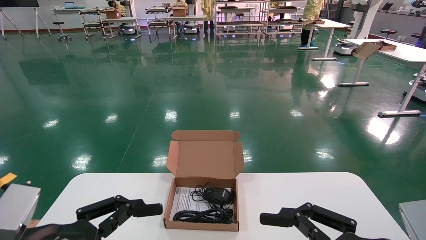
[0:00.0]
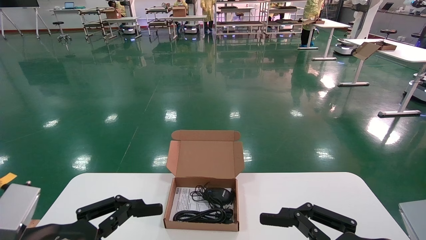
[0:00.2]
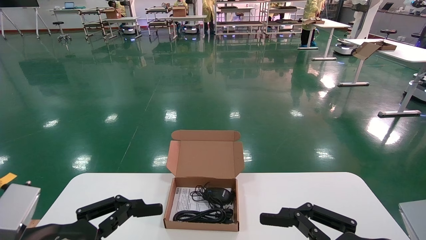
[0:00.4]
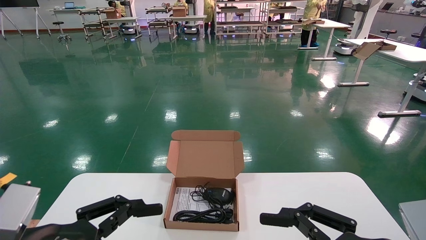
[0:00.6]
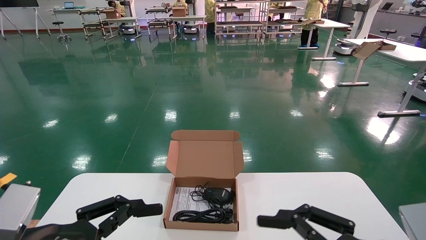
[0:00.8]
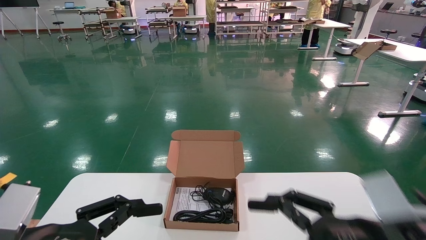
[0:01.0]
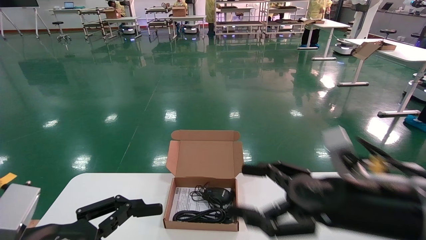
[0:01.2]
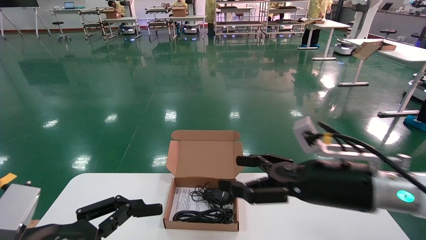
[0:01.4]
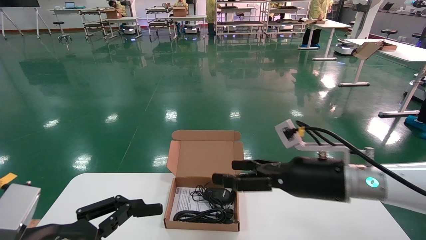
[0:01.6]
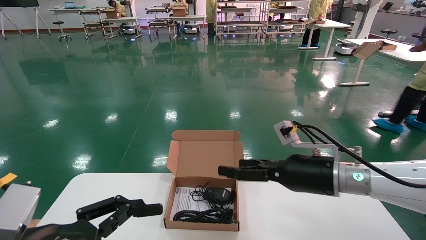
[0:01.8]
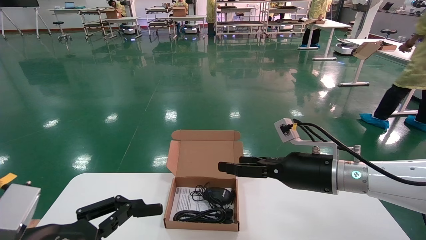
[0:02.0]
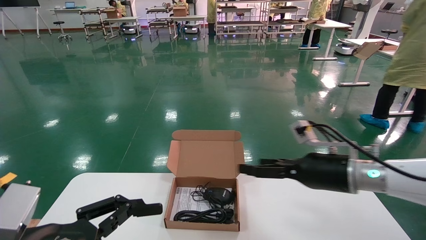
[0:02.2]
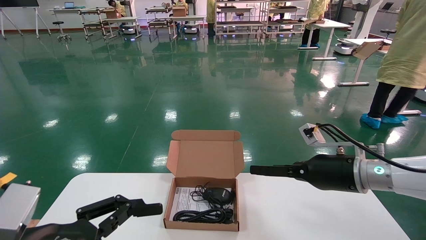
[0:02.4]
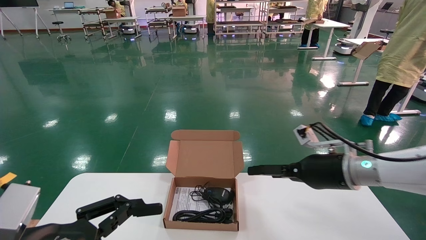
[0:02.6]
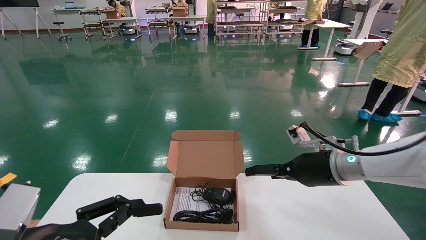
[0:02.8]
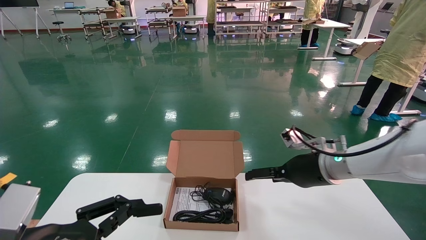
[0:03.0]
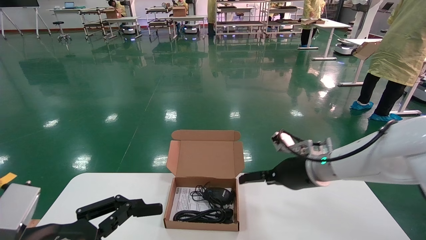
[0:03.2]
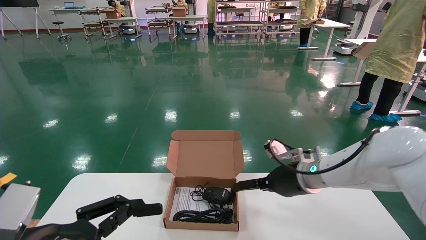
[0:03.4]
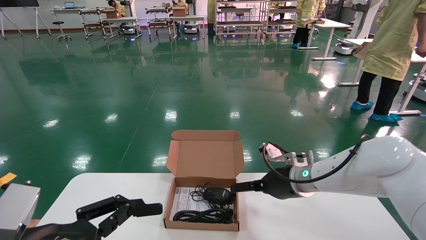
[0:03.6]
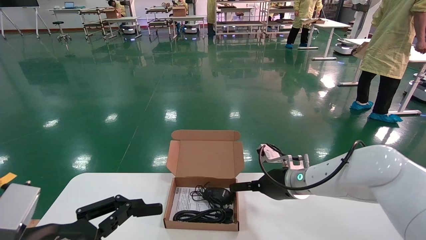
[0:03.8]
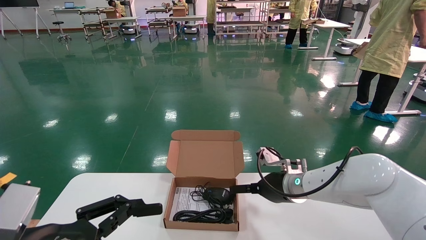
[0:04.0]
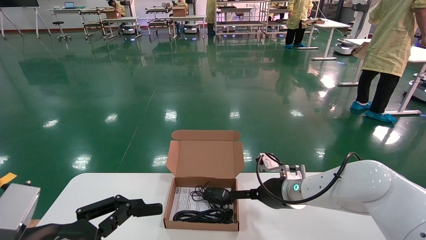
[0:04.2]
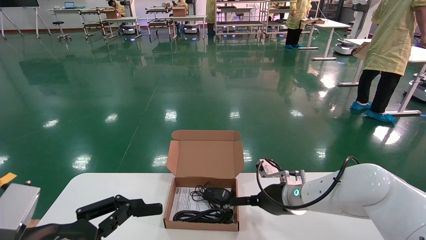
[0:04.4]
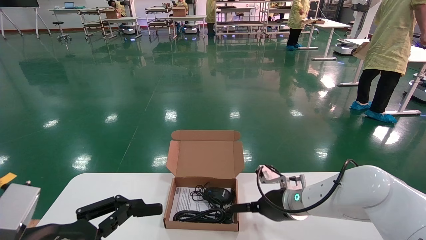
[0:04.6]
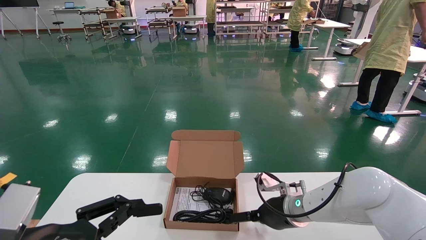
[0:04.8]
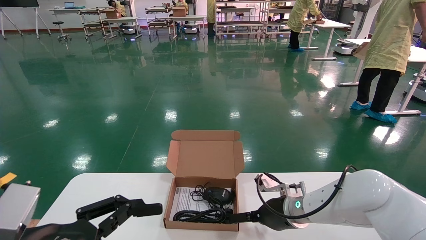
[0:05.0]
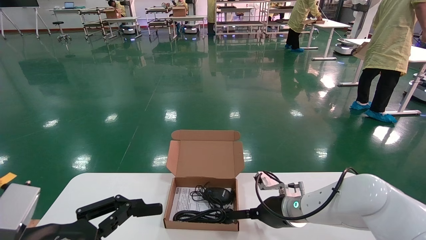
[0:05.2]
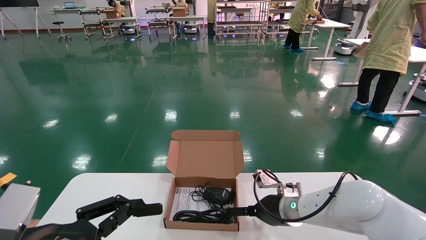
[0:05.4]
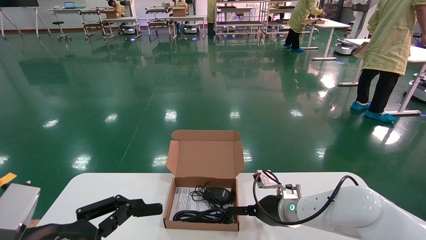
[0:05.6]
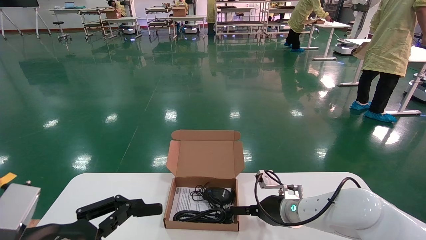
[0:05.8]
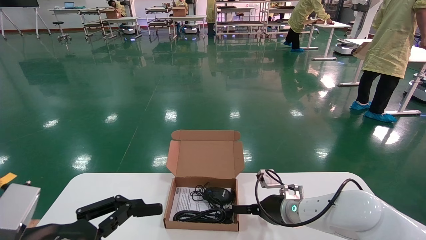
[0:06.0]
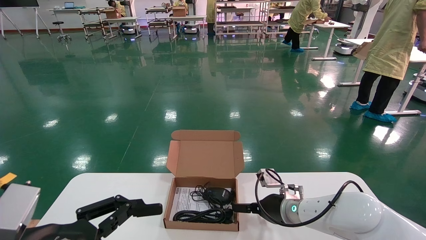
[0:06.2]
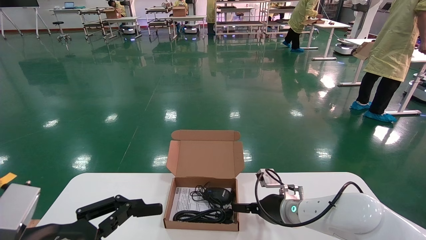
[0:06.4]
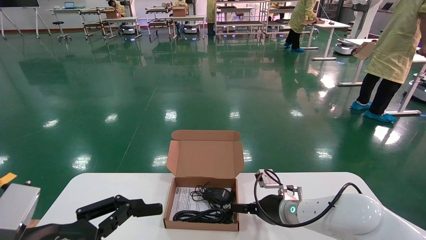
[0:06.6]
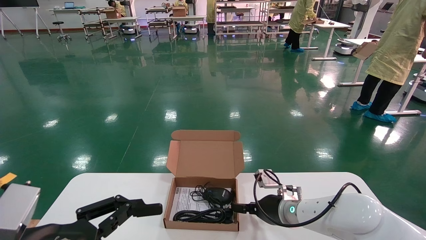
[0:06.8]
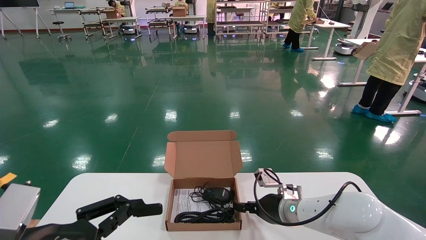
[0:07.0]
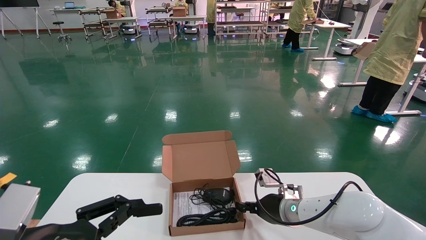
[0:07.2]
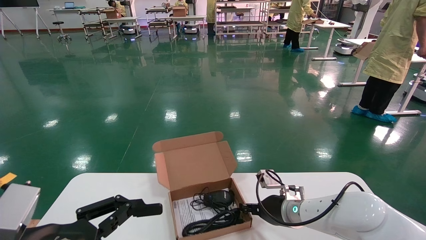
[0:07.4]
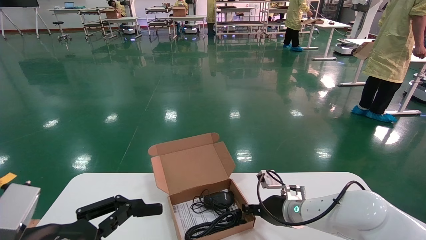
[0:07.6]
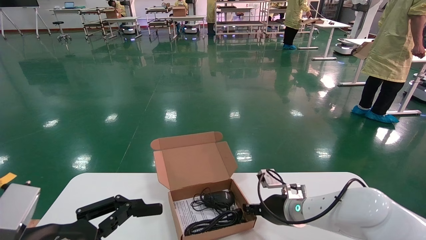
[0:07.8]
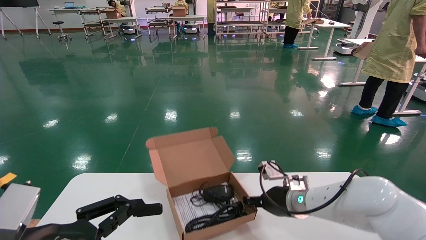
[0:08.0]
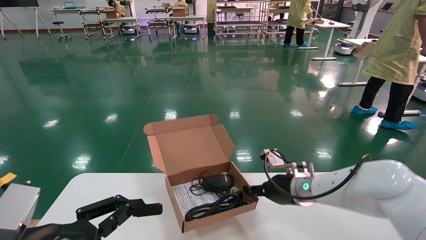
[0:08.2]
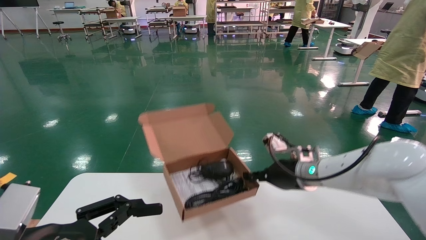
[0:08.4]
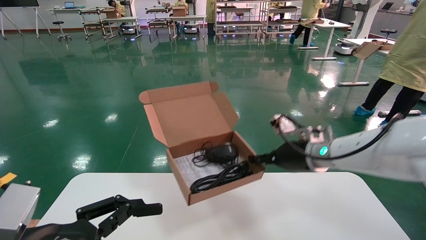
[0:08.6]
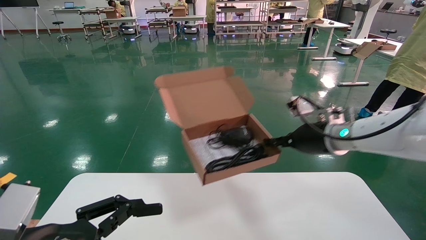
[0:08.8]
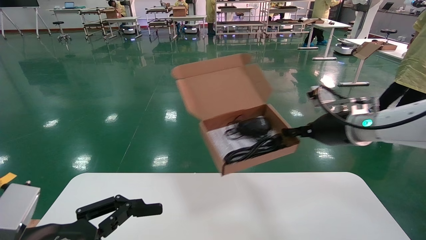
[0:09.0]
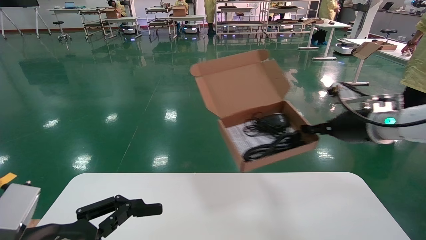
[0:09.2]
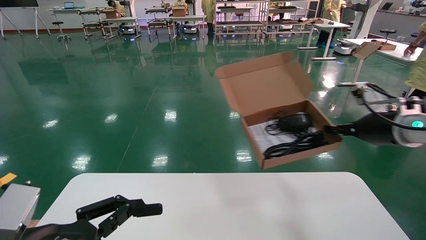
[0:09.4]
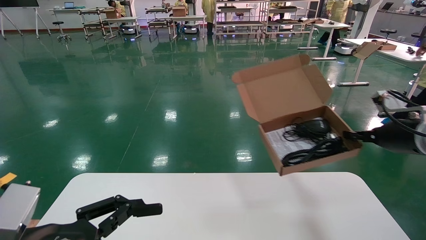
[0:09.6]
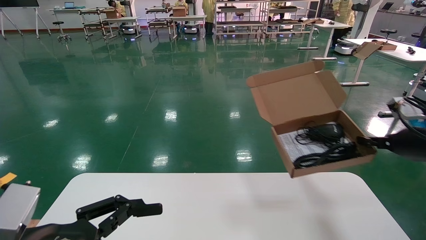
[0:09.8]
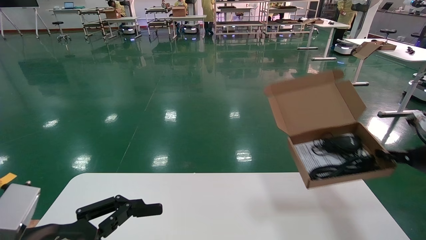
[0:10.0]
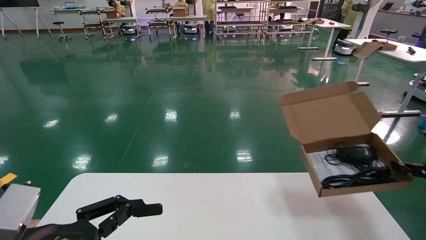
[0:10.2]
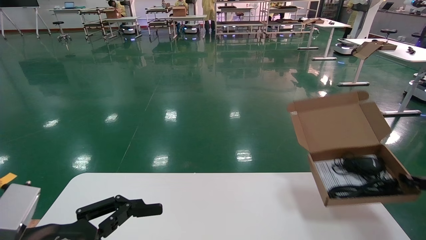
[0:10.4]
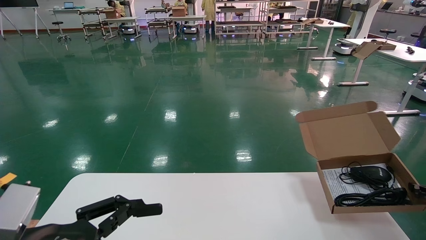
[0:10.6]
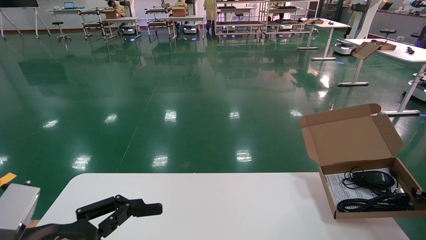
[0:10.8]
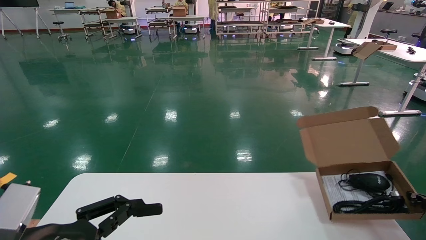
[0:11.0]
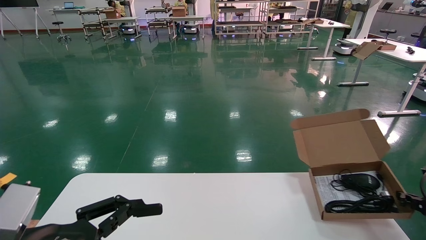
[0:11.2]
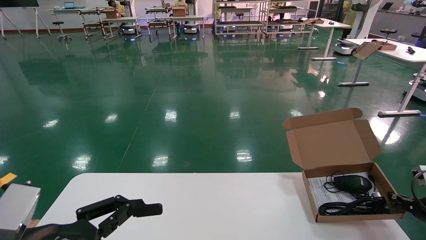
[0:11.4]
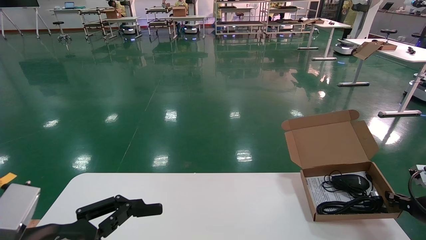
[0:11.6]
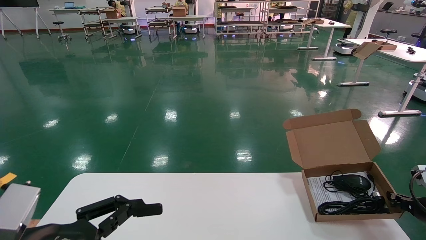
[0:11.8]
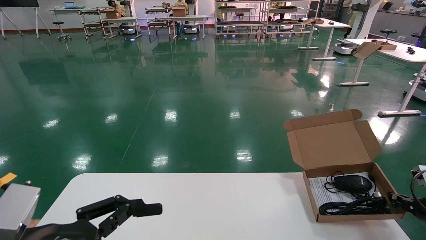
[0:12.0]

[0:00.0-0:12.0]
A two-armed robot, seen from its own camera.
Task of the whole recording: move the position of the storage box with accessories on the table.
Step, 0:01.2 to 0:07.4: Grab and pick up the open mouse box from the accessory packaging area.
0:00.0 to 0:01.6: The right gripper moves forward, approximately 20 cm.
0:01.6 to 0:03.0: The right gripper goes about 10 cm forward.
0:03.0 to 0:04.4: The right gripper heads downward and to the left, covering about 10 cm.
0:04.4 to 0:06.0: The grippers move only a little.
0:06.0 to 0:07.6: The right gripper closes.
0:07.6 to 0:09.0: The right gripper goes approximately 25 cm upward and to the right.
0:09.0 to 0:10.4: The right gripper is displaced to the right and downward by roughly 25 cm.
0:10.4 to 0:12.0: The right gripper moves downward, some 5 cm.

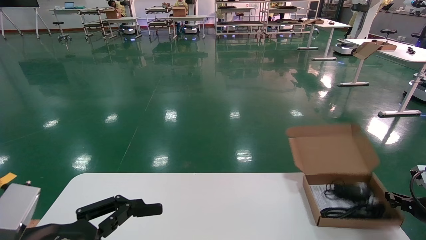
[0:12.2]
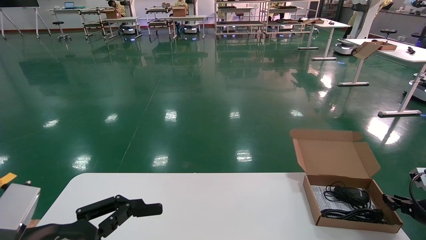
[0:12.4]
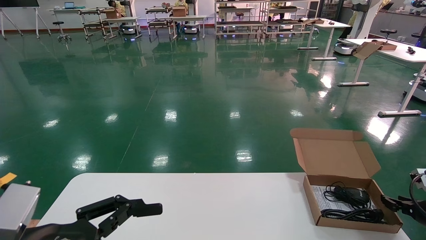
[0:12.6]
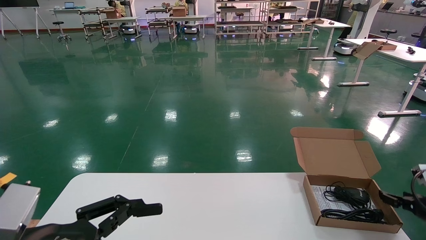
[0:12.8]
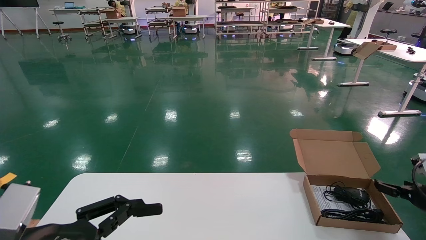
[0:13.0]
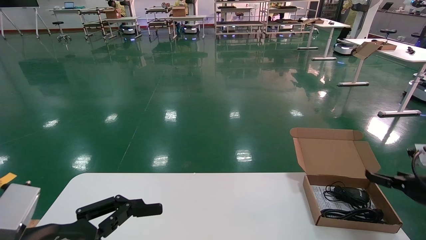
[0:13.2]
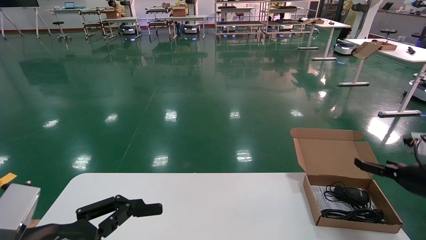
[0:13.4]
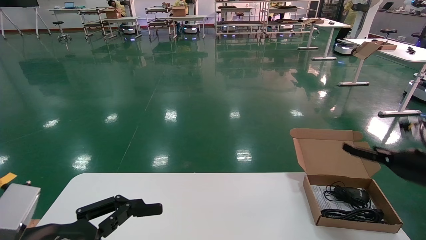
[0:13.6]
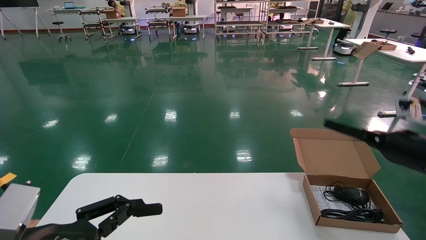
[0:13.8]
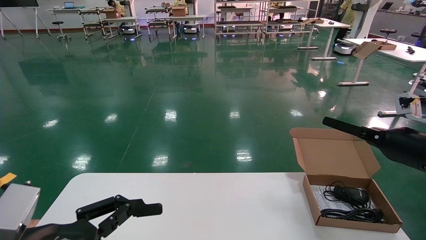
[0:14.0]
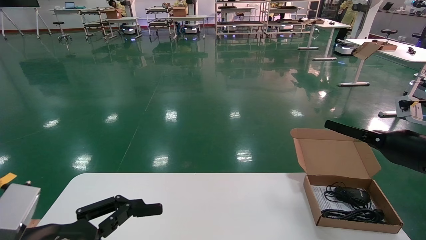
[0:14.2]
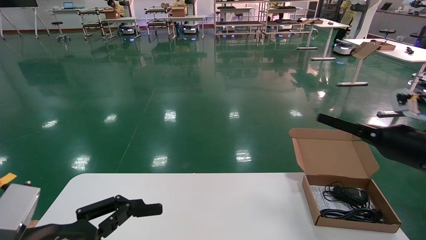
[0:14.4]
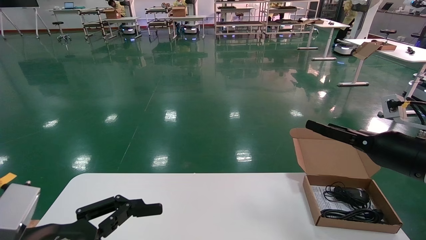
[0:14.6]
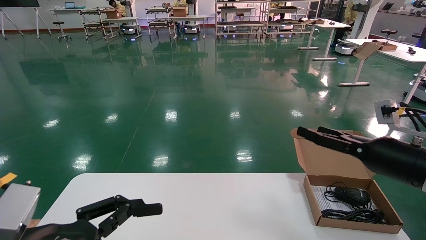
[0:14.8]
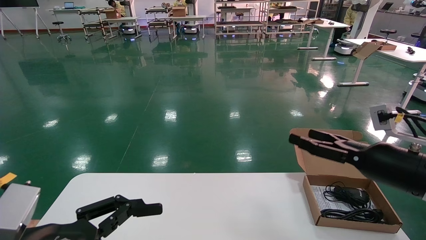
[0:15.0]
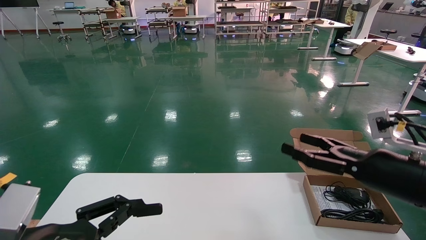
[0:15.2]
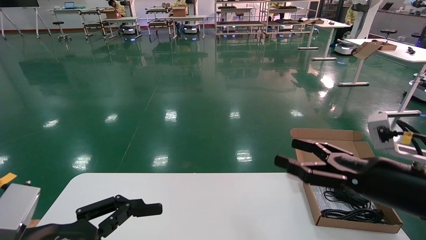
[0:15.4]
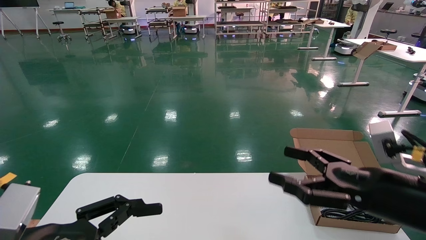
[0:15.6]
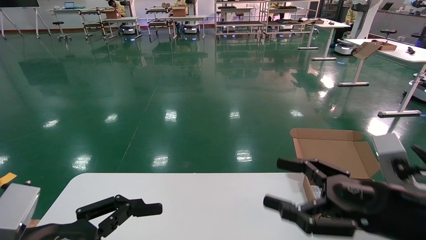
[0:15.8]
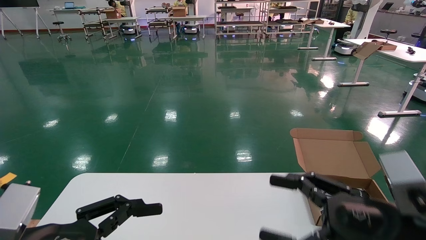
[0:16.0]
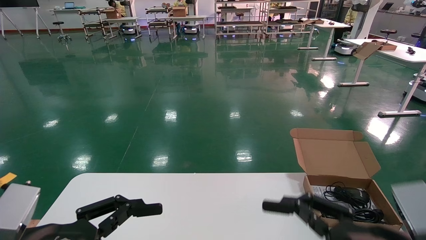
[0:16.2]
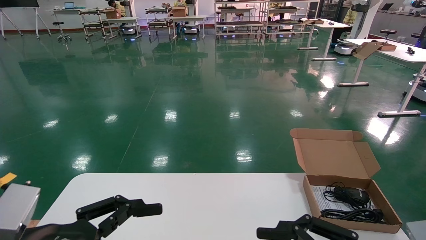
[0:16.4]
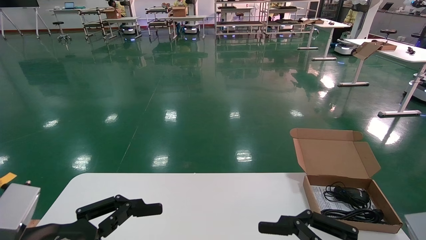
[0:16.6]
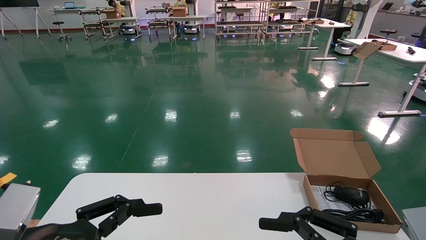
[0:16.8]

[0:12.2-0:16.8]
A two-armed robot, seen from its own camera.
Task of the whole recording: move the position of the storage box with accessories on the table.
0:12.2 to 0:13.8: The right gripper is displaced upward and to the left by about 15 cm, and opens.
0:13.8 to 0:15.2: The right gripper heads to the left and backward, covering some 10 cm.
0:15.2 to 0:16.8: The right gripper heads backward and to the left, covering approximately 15 cm.
